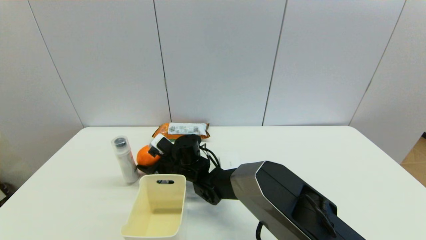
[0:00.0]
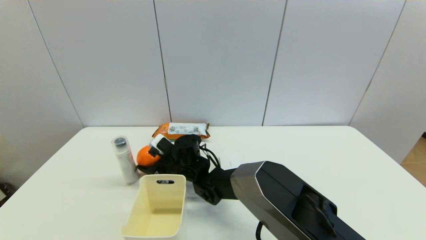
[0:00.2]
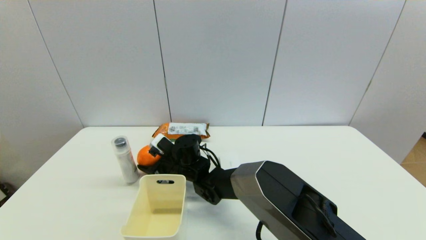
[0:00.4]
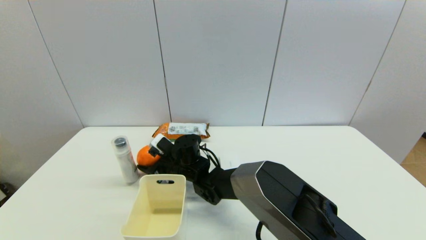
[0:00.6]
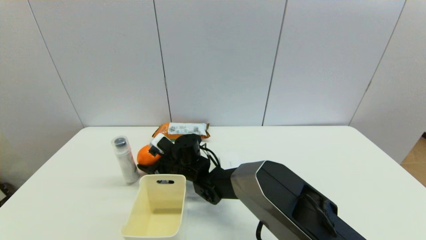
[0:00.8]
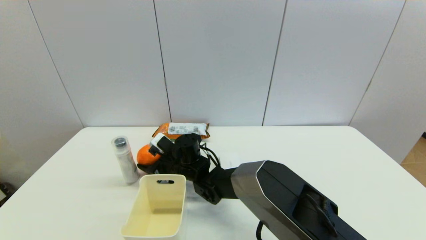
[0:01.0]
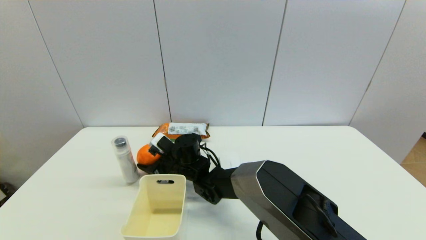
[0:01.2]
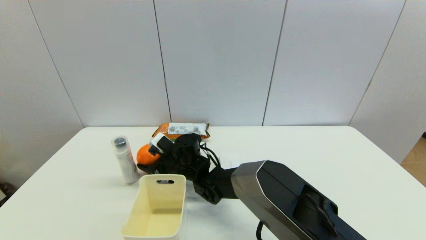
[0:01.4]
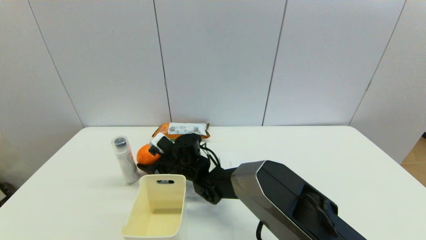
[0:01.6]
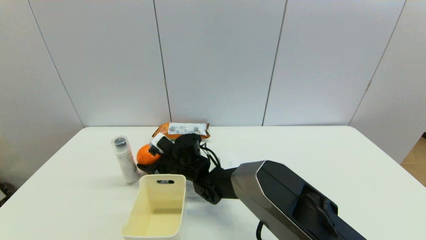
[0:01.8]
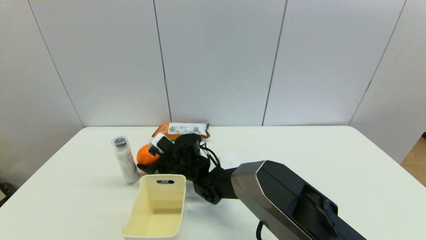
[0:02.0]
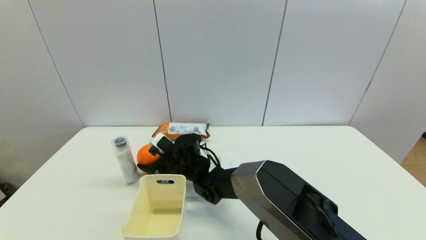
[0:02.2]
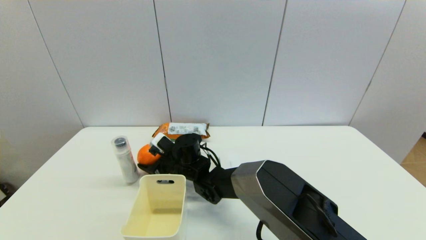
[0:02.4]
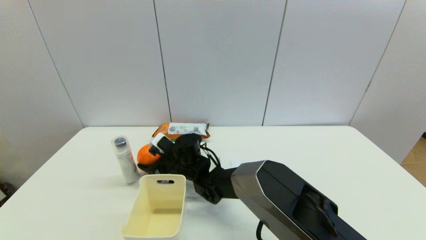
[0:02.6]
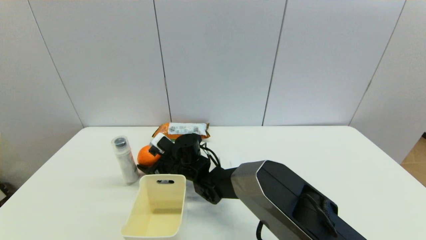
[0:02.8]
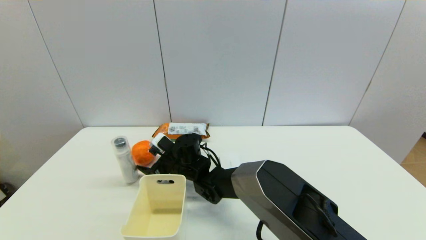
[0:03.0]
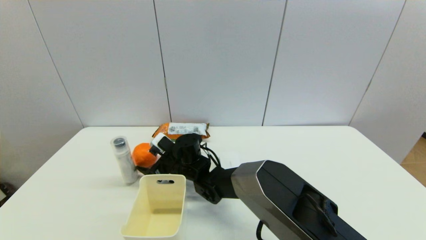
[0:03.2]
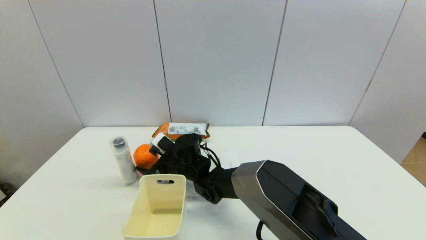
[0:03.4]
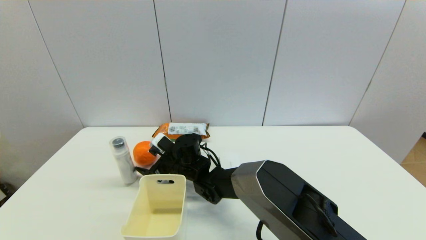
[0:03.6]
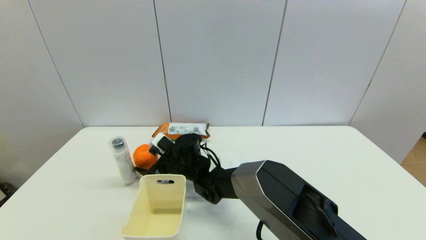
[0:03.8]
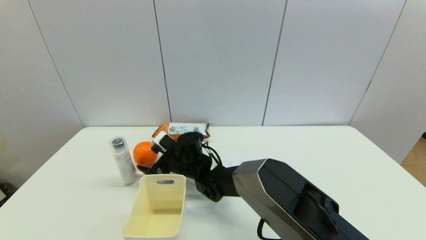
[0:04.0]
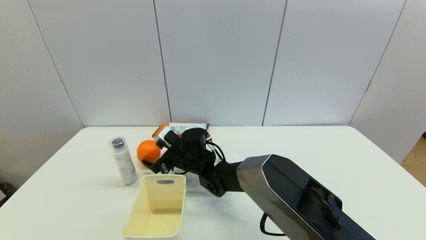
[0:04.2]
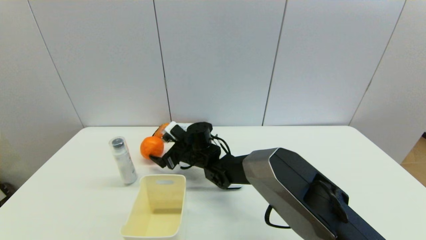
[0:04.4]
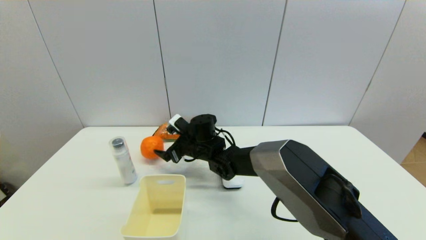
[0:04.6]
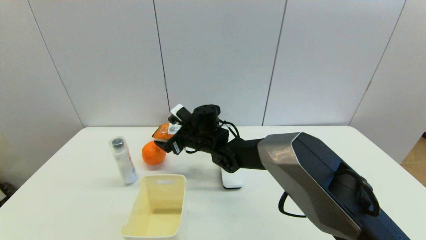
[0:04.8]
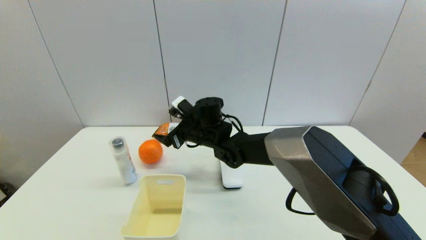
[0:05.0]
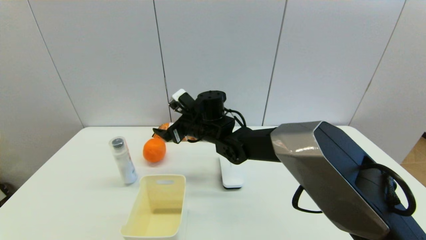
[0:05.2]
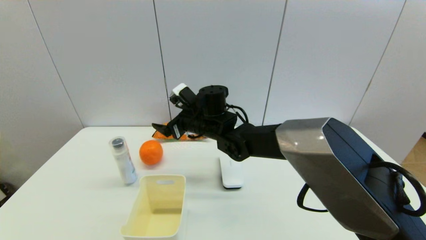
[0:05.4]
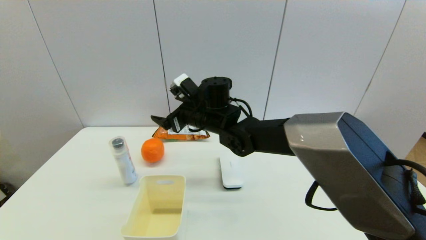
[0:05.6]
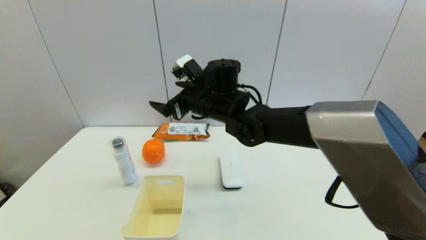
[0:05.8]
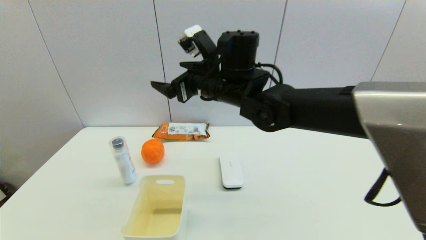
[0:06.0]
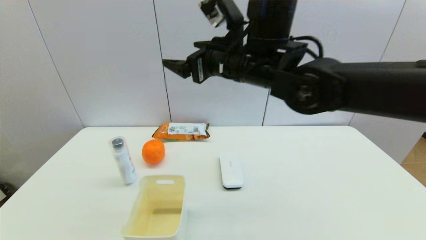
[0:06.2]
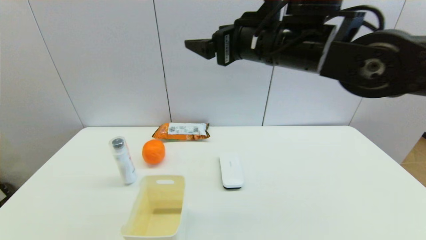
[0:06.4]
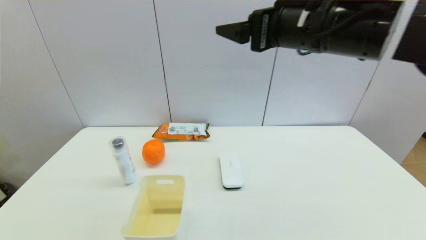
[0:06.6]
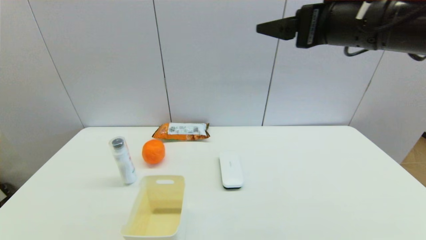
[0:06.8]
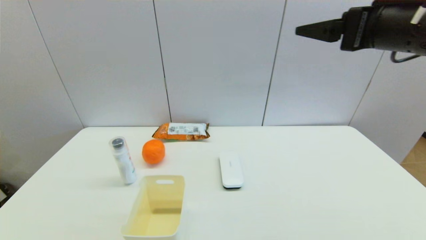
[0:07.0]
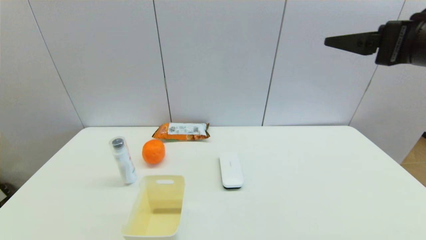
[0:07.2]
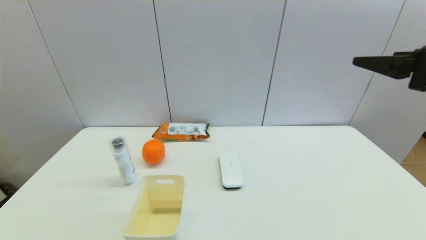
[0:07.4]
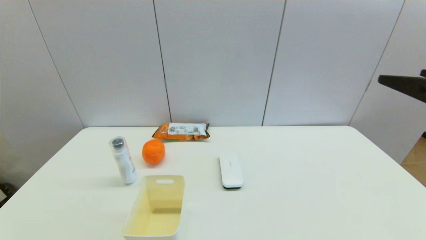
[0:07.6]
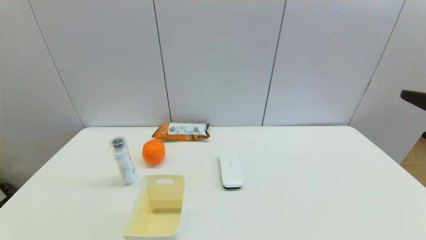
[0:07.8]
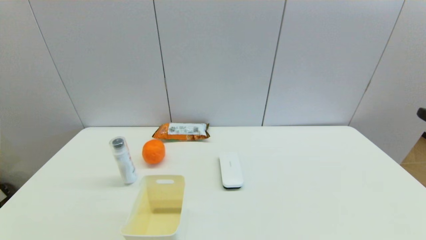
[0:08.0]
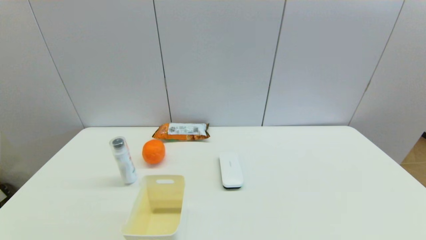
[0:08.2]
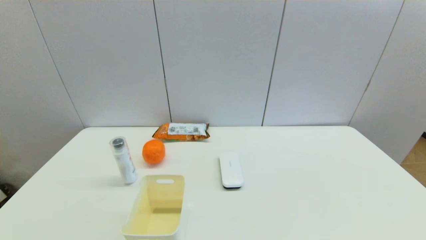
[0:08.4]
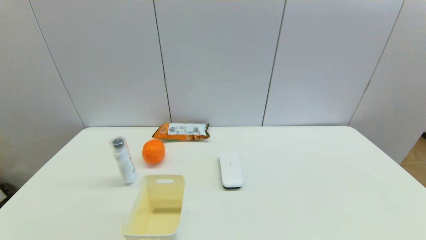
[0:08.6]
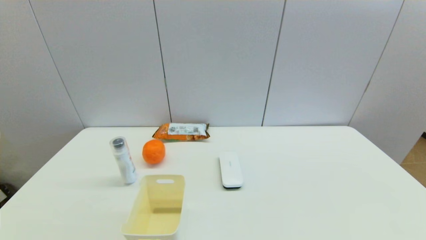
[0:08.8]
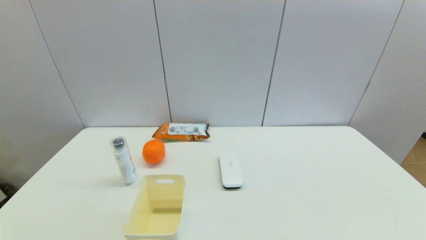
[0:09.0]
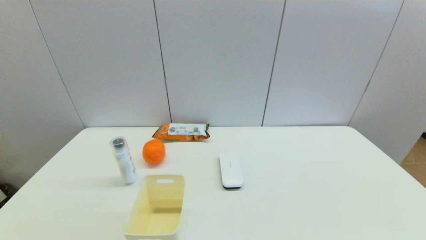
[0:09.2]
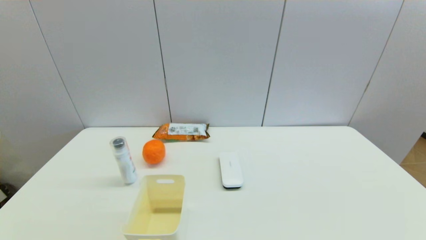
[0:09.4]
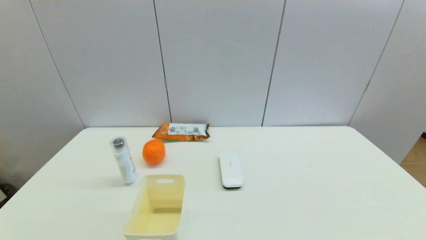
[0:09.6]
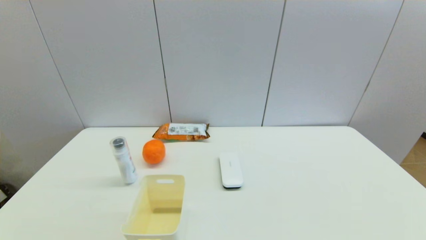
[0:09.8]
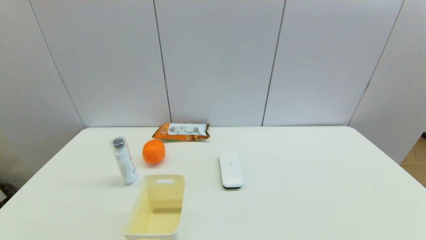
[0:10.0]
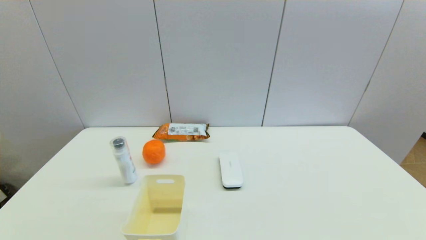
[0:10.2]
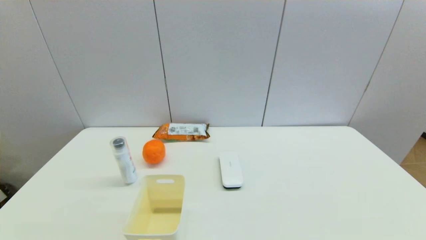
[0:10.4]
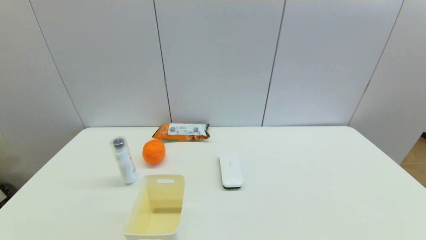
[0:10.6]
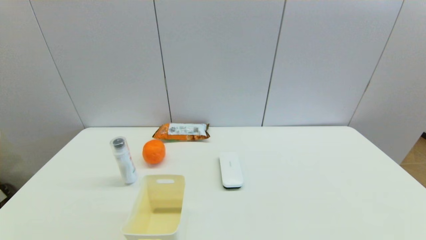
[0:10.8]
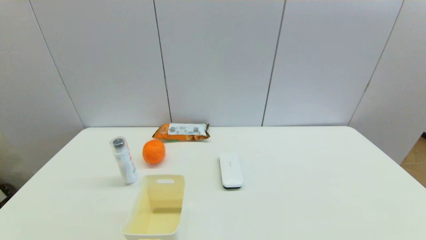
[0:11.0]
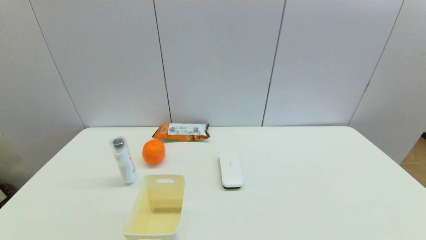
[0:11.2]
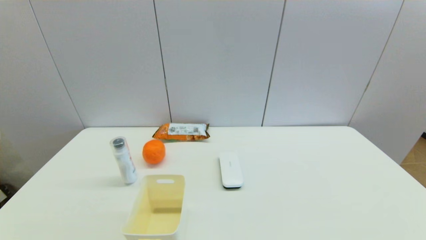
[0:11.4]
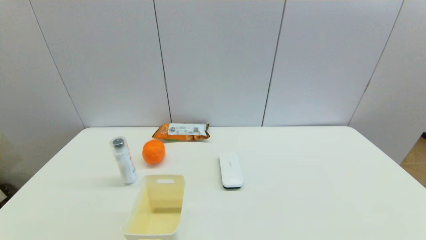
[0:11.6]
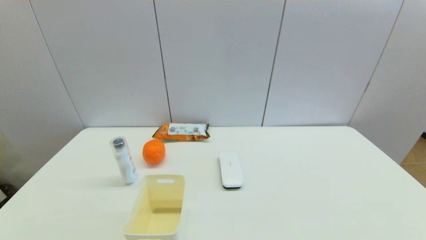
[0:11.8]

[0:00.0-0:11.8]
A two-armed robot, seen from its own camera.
0:00.0 to 0:01.4: The two grippers keep their place.
0:03.0 to 0:04.4: The right gripper opens.
0:04.4 to 0:06.0: The right gripper heads upward, covering approximately 20 cm.
0:06.0 to 0:07.4: The right gripper heads to the right and backward, covering approximately 35 cm.
0:07.4 to 0:08.8: The right gripper heads backward and downward, covering roughly 20 cm.
